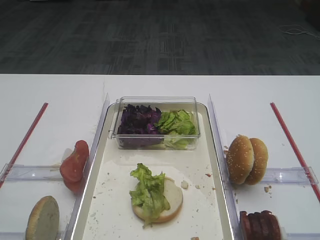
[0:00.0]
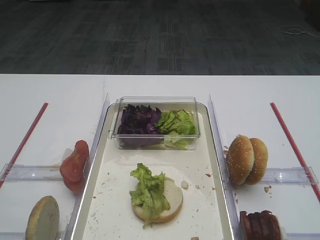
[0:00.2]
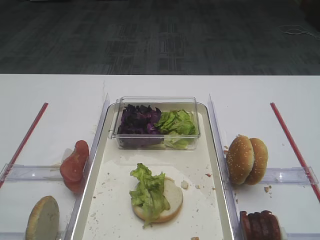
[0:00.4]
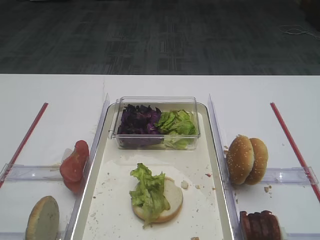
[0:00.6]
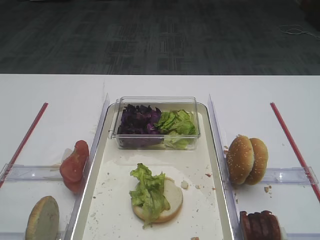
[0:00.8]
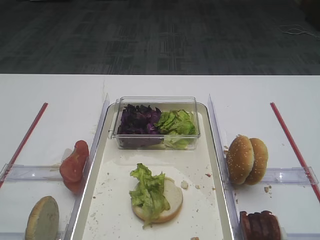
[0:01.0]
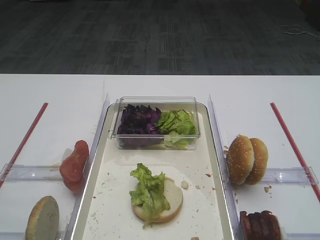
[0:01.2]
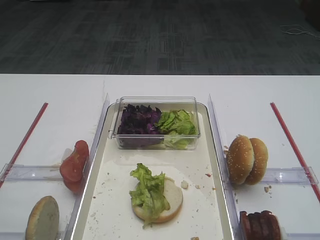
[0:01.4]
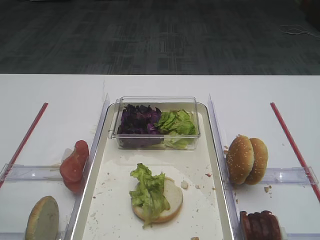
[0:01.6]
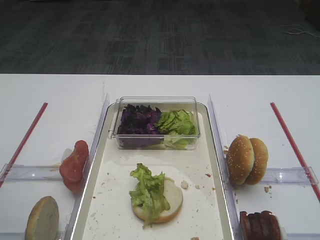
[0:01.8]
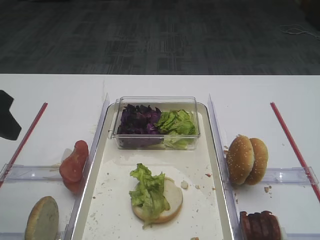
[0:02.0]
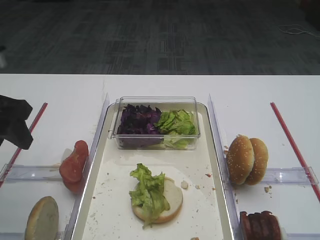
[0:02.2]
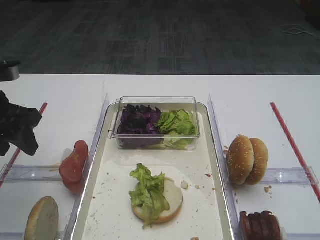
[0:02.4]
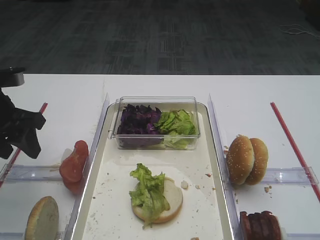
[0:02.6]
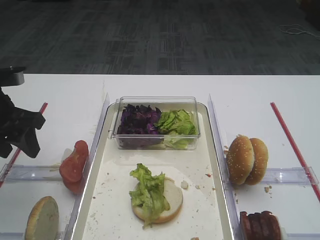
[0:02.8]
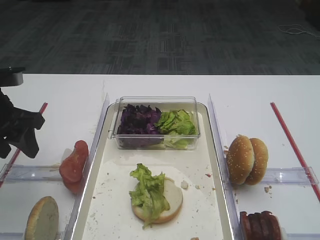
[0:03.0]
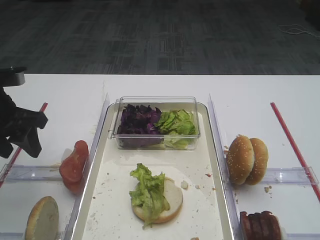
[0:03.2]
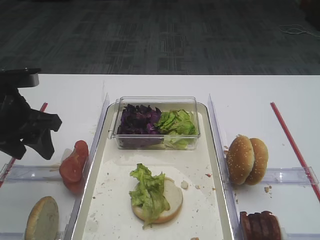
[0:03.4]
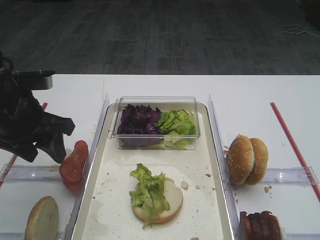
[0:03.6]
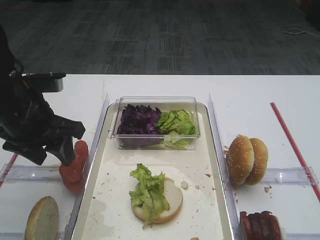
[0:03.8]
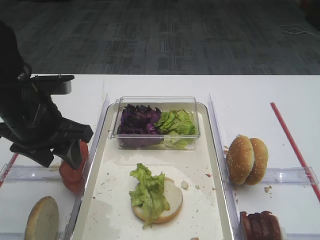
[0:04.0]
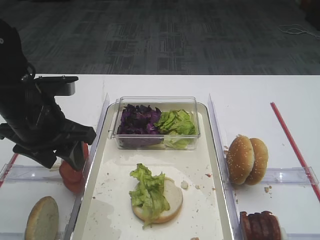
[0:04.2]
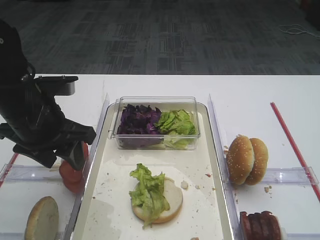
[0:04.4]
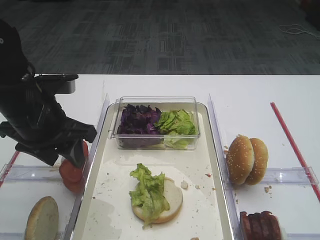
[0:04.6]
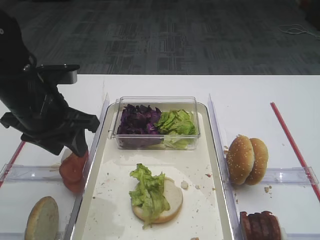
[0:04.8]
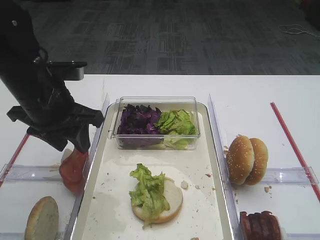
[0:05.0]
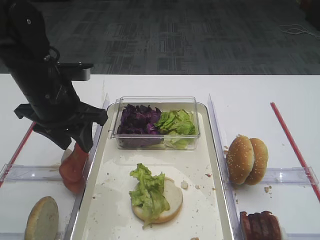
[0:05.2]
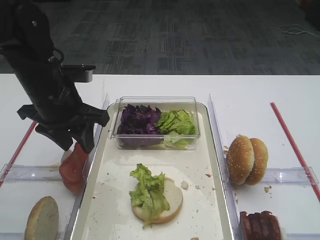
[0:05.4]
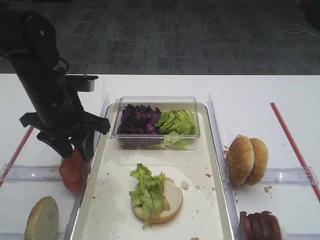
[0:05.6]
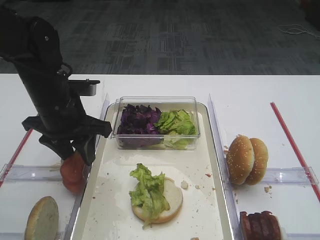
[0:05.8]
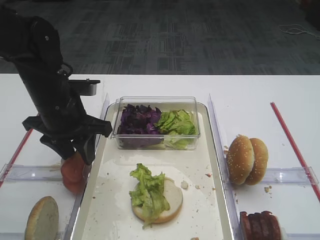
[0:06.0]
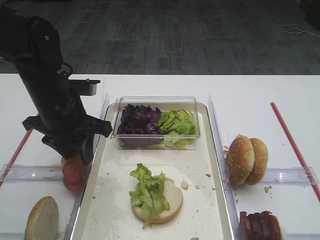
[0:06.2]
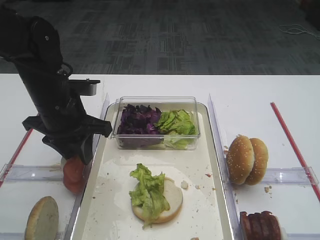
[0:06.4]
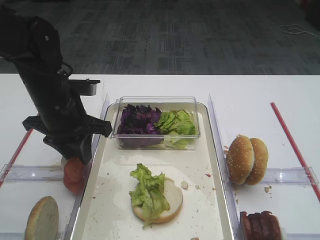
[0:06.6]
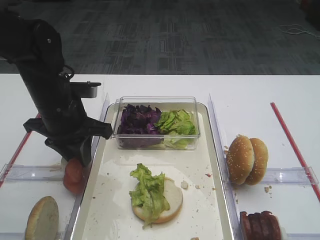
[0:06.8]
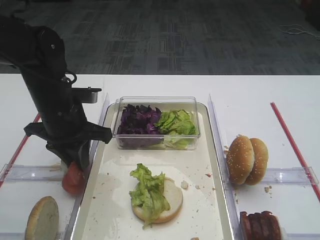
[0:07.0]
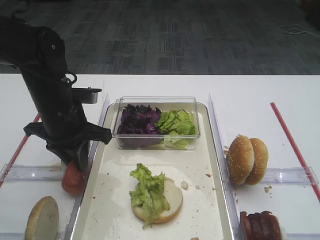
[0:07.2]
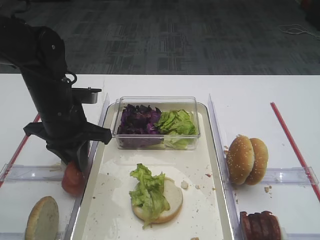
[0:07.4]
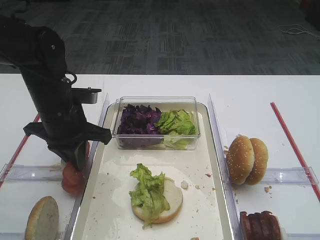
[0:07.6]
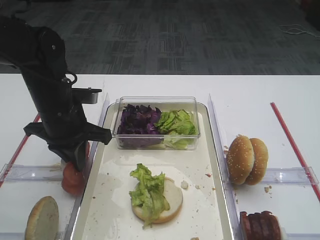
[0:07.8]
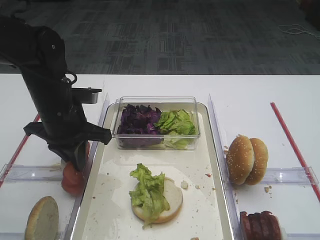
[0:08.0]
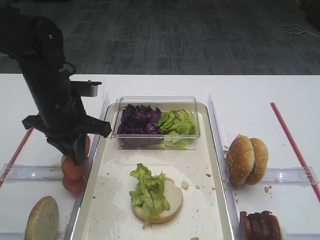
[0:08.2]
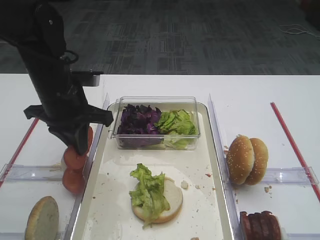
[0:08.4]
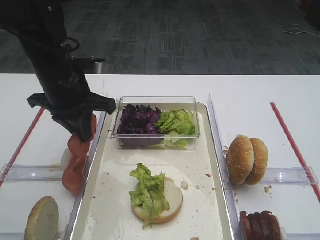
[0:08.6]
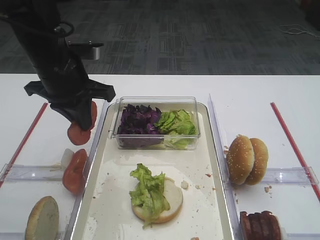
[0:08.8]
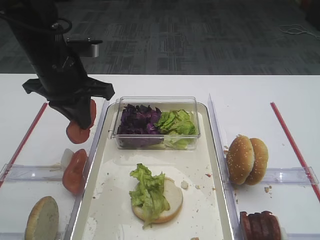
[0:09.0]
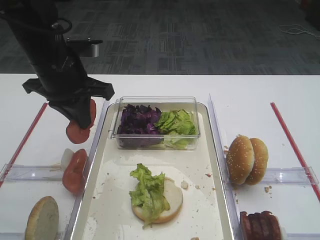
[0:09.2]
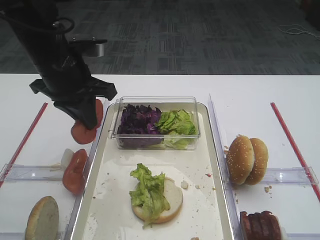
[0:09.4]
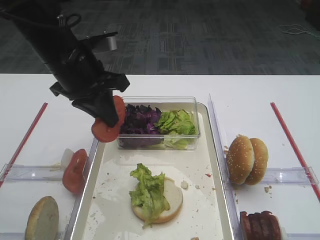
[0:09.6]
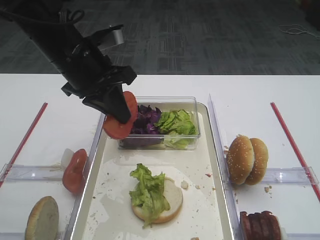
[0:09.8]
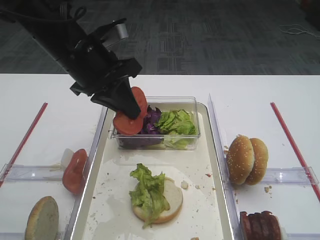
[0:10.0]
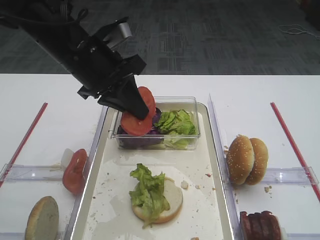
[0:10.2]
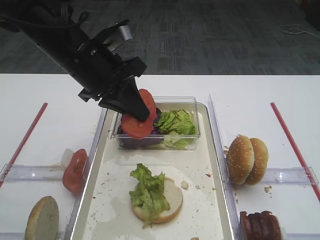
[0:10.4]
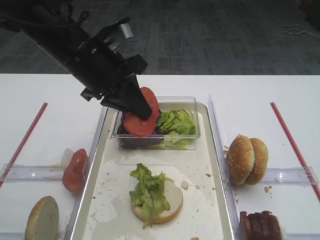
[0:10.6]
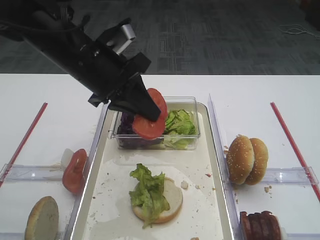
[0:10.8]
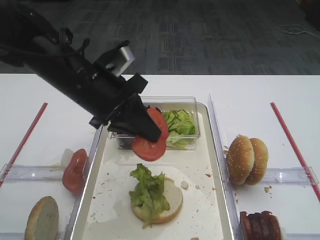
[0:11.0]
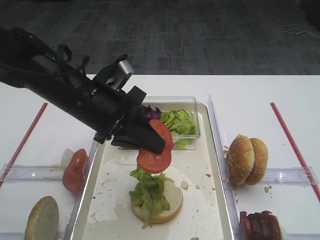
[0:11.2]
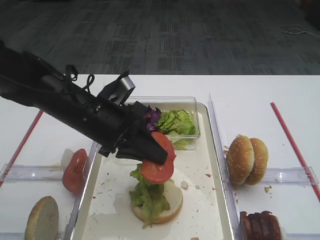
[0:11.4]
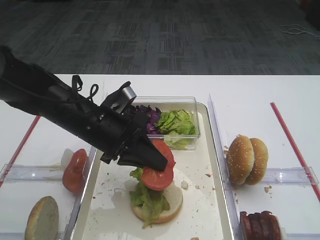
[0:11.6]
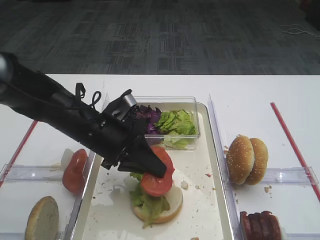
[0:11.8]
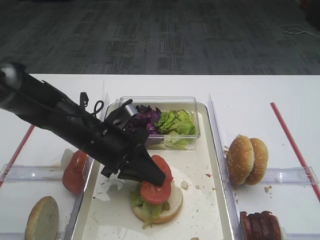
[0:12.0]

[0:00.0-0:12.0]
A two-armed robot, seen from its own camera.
Step, 0:00.0 to 0:08.4: Pick up the tomato slice with the left gripper.
0:01.6 to 0:03.0: The left gripper is displaced forward and downward by about 25 cm.
0:03.0 to 0:04.4: The left gripper moves to the right, some 10 cm.
0:04.4 to 0:06.0: The left gripper changes place by some 5 cm.
0:06.0 to 0:07.6: The left gripper closes its fingers.
0:07.6 to 0:09.0: The left gripper heads upward, covering roughly 10 cm.
0:10.4 to 0:12.0: The left gripper moves downward, roughly 15 cm.

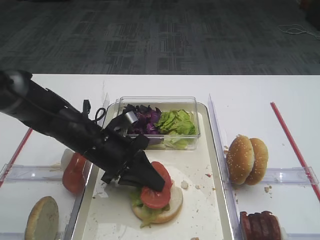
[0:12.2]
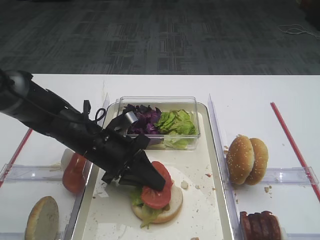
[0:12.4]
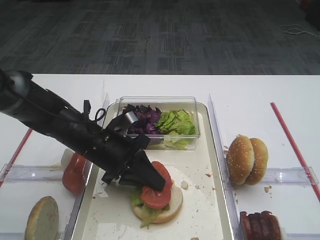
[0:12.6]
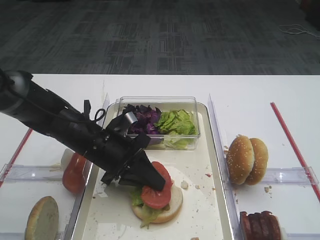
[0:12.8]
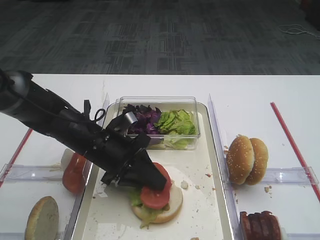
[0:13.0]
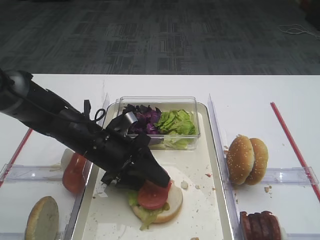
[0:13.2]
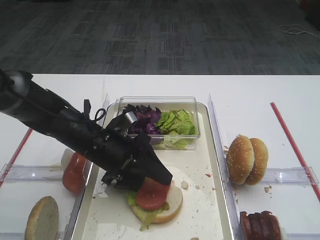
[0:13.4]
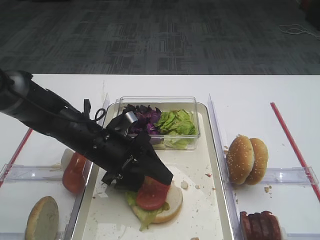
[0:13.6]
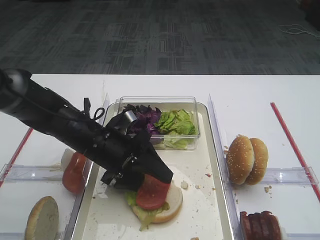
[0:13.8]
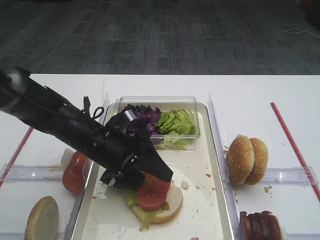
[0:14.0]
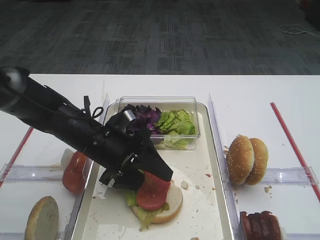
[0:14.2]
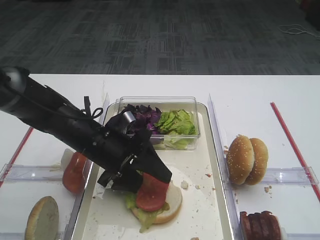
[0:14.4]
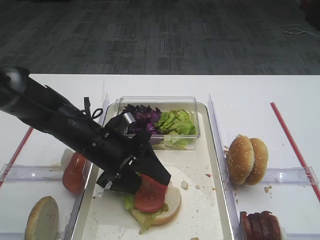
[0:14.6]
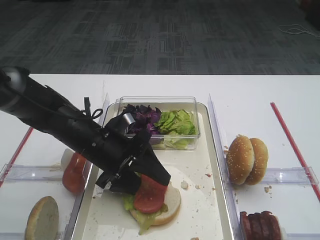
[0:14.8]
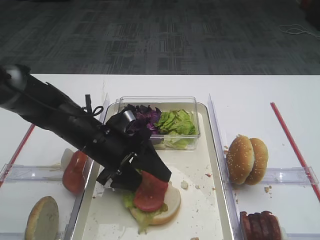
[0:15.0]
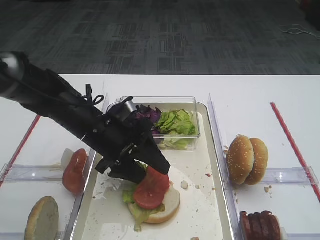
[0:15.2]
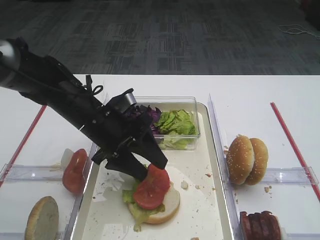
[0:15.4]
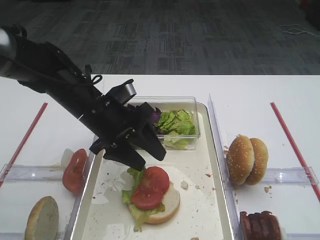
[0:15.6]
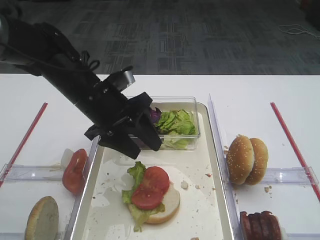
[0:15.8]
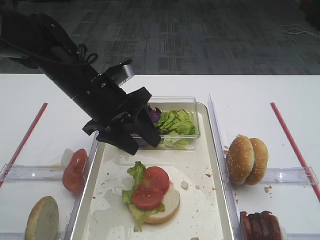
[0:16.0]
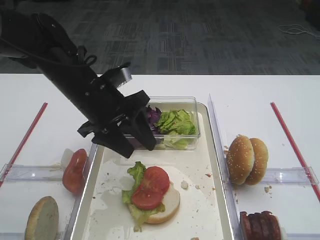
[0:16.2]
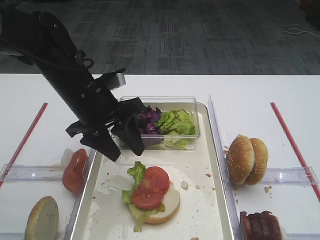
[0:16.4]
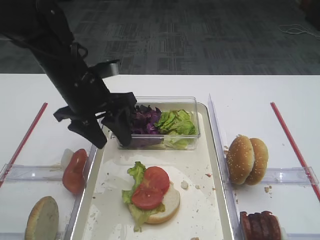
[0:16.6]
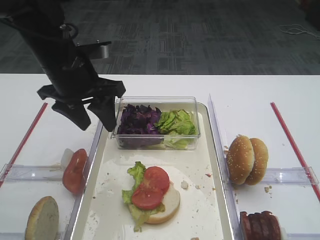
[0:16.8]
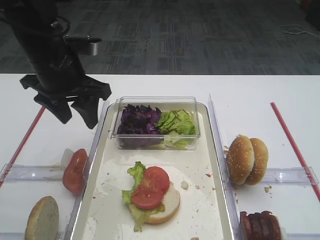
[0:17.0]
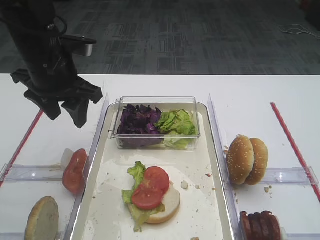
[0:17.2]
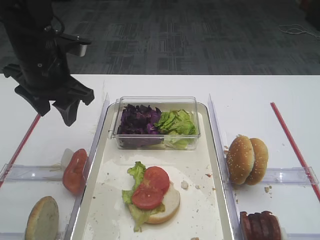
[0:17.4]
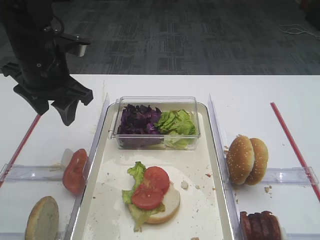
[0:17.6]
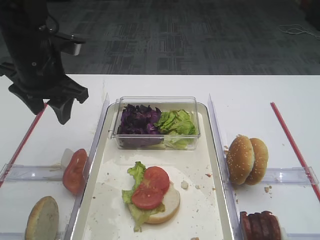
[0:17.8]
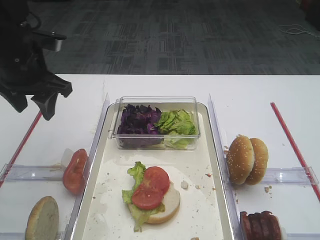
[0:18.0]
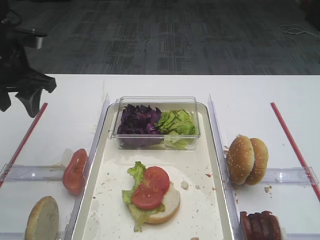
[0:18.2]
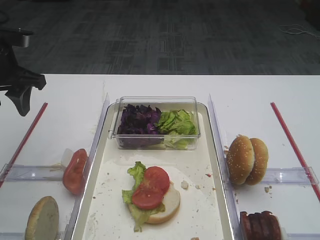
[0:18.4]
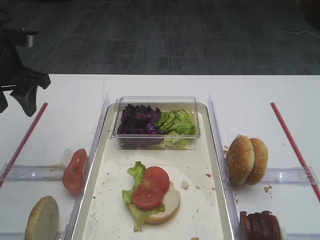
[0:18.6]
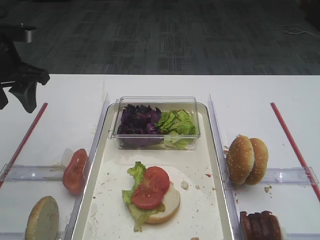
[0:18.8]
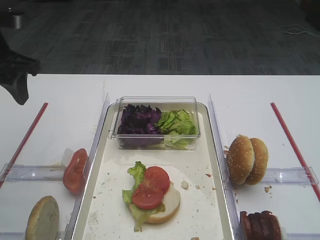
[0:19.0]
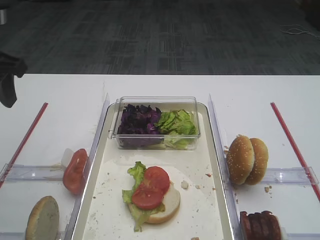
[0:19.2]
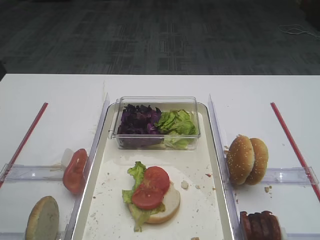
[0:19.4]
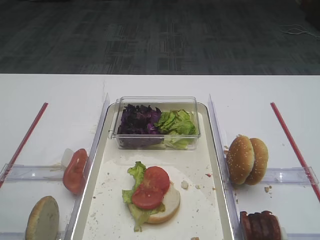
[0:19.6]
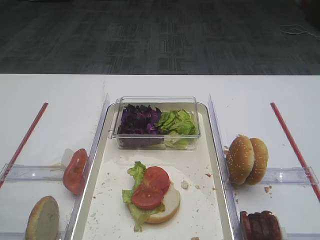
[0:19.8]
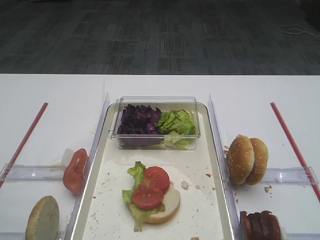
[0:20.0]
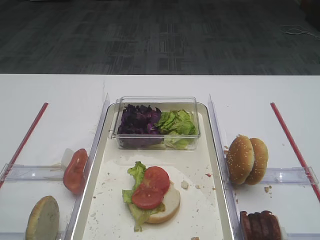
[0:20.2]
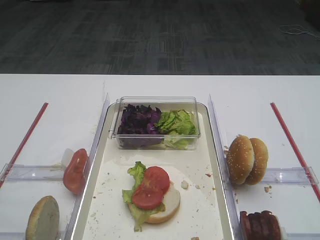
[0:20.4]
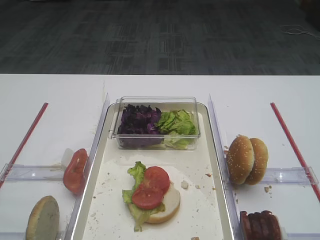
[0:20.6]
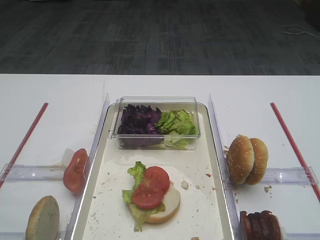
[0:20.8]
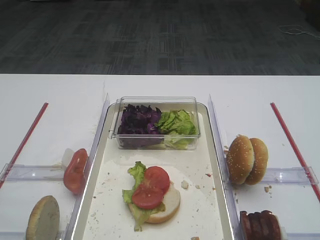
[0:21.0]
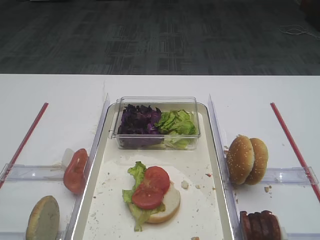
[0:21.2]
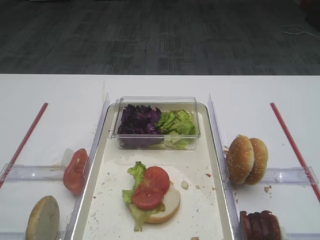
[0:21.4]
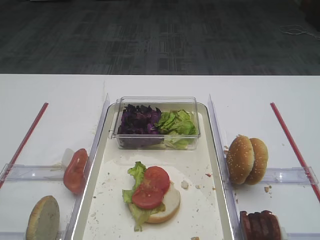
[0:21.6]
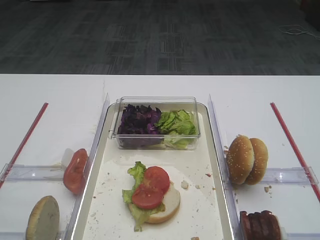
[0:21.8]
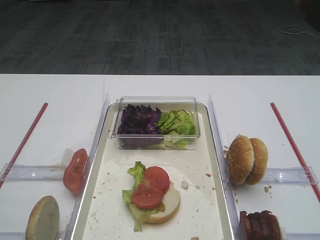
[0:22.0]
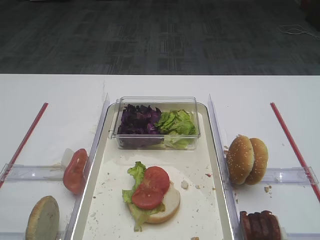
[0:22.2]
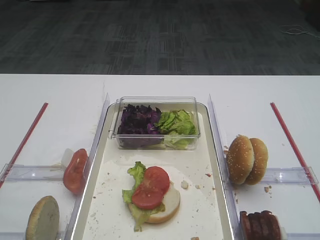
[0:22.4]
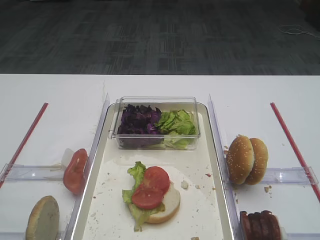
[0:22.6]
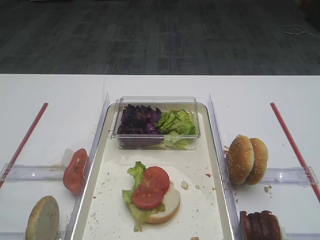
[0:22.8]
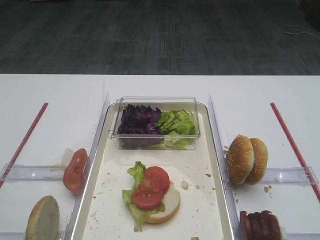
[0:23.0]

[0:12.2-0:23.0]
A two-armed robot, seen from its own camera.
Step, 0:12.2 to 0:16.2: Place the tomato slice on the lettuce leaf with the left gripper.
0:12.2 to 0:13.8: The left gripper opens up.
0:13.8 to 0:15.2: The grippers move only a little.
0:15.2 to 0:16.8: The left gripper moves upward, roughly 10 cm.
0:16.8 to 0:18.4: The left gripper travels to the left by approximately 10 cm.
0:18.4 to 0:20.0: The left gripper moves backward, some 25 cm.
0:21.4 to 0:23.0: Both grippers stay put.
